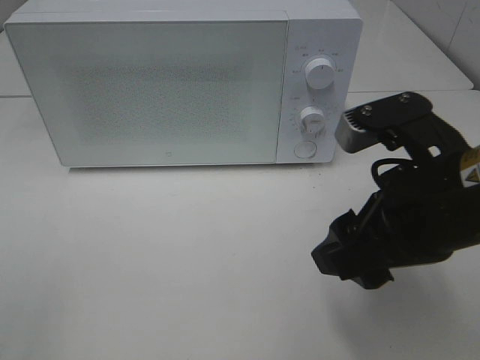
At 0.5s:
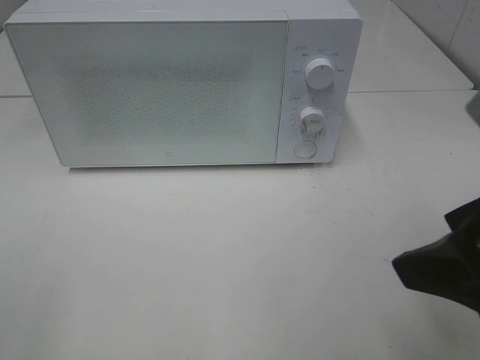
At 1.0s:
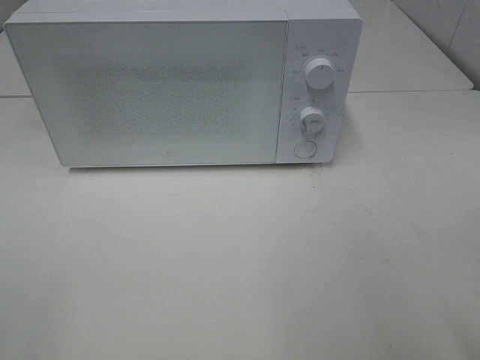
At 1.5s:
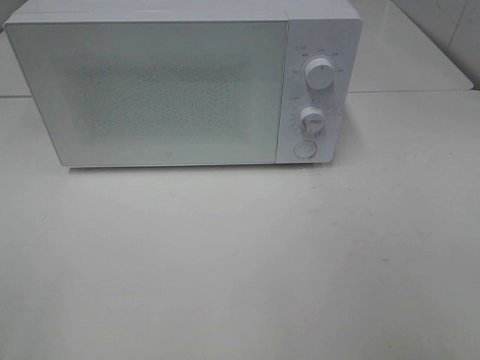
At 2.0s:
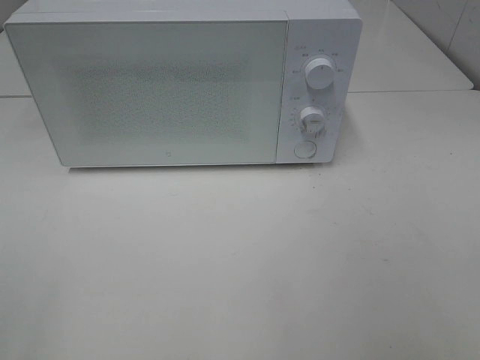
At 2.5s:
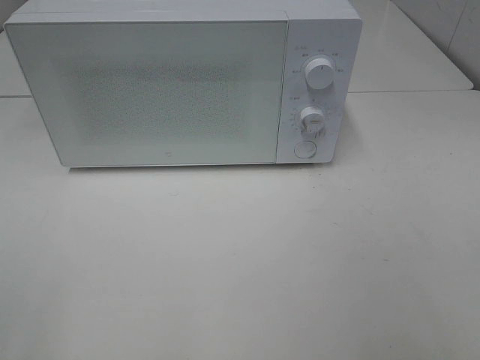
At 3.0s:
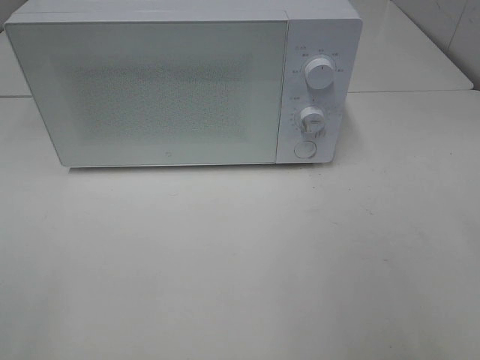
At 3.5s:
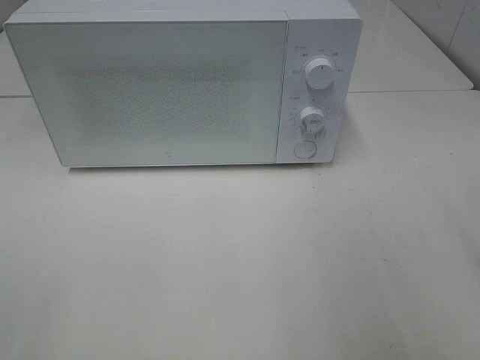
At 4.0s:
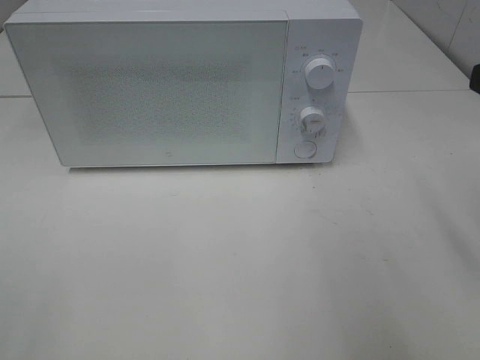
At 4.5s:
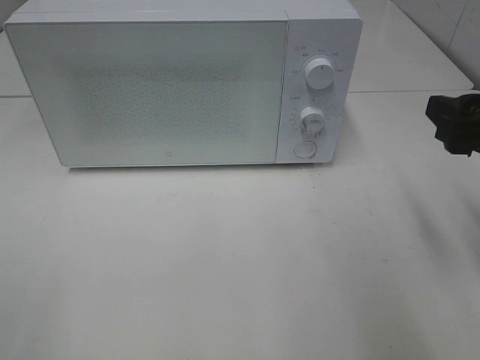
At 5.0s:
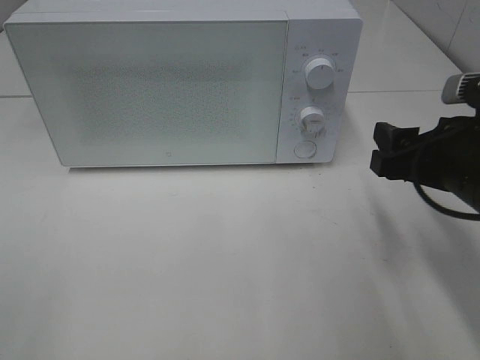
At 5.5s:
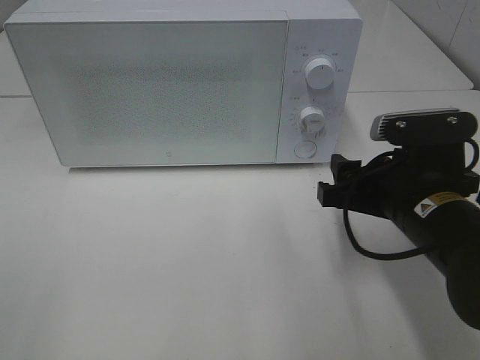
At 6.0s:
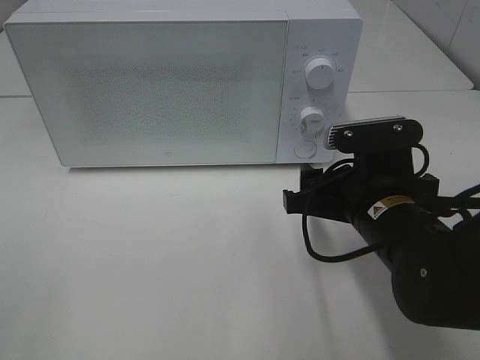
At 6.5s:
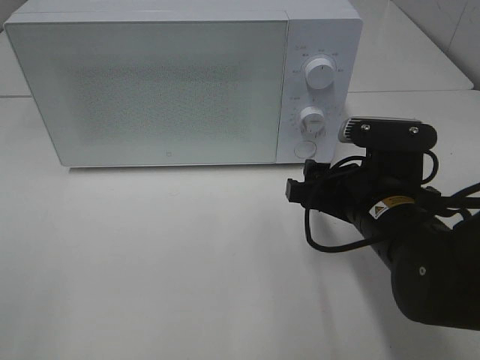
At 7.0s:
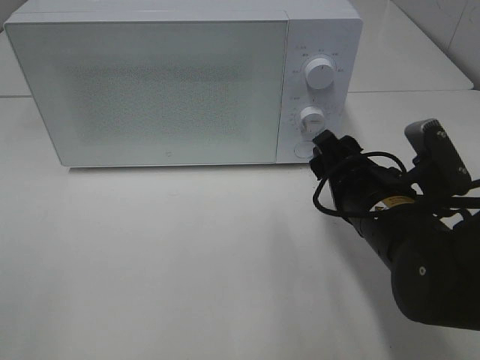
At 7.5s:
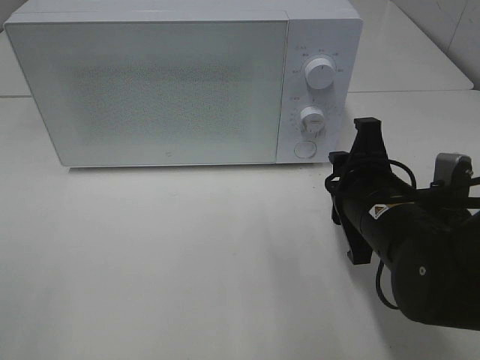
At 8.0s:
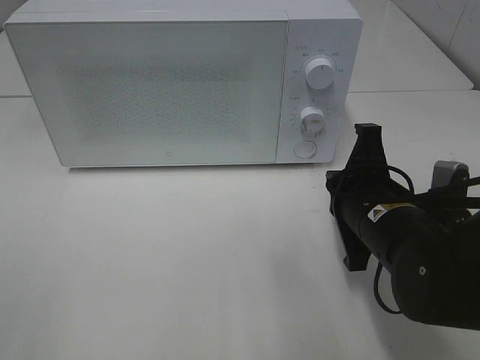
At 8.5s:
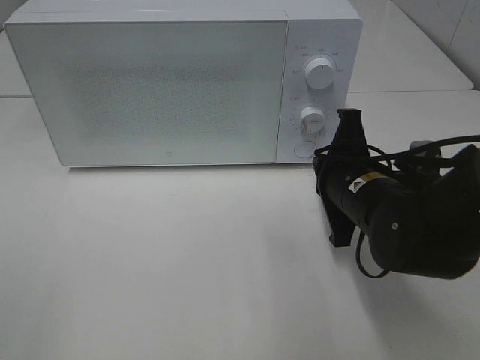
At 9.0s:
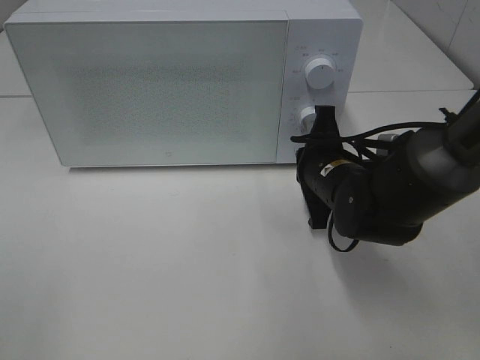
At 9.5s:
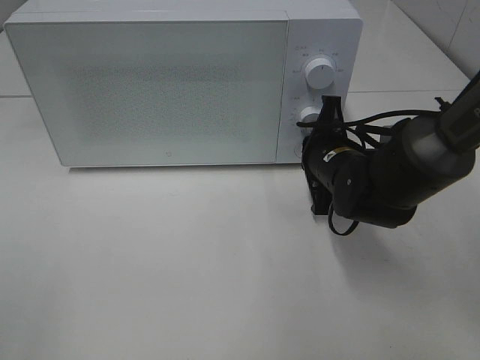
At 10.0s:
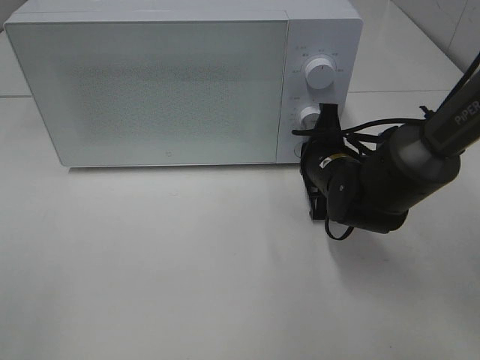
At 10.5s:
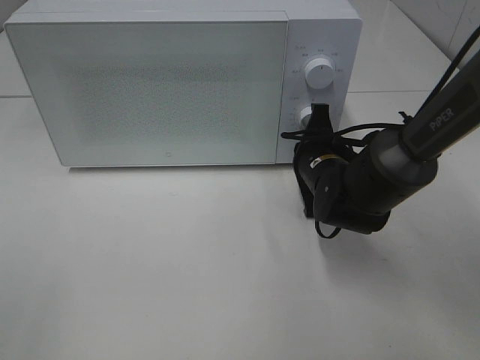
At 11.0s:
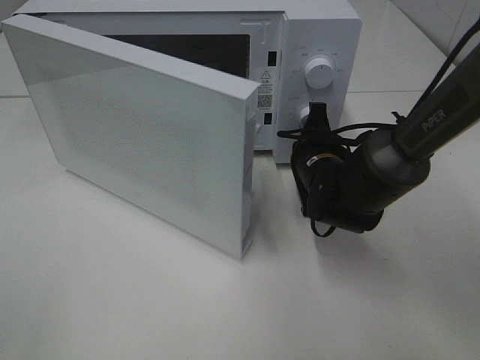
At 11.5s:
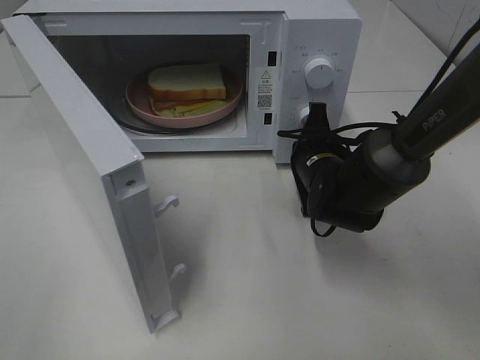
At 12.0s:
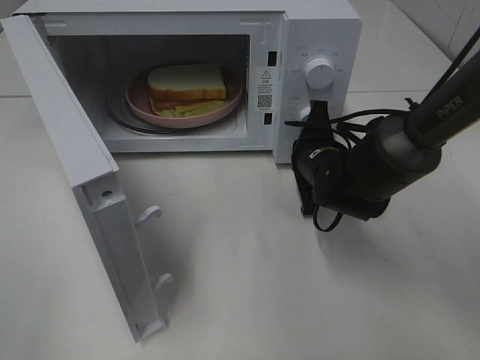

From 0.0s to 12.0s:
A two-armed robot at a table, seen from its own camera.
Task of the whole recording: Heat Sandwich.
From 0.0s to 2.0s: The right gripper goes about 20 cm backward and to the right.
From 4.0s to 6.0s: The right gripper shifts some 20 cm downward and to the left.
From 6.0s to 8.0s: The right gripper closes its fingers.
From 8.0s to 10.0s: The right gripper shifts approximately 10 cm forward.

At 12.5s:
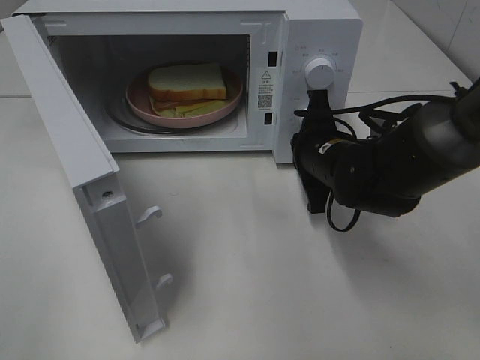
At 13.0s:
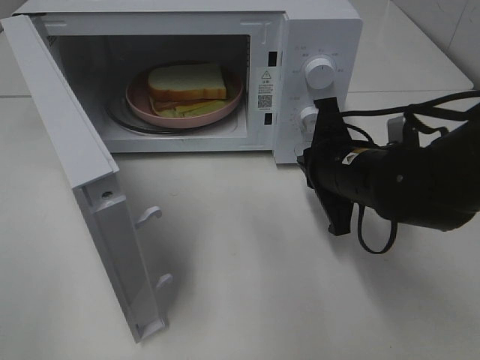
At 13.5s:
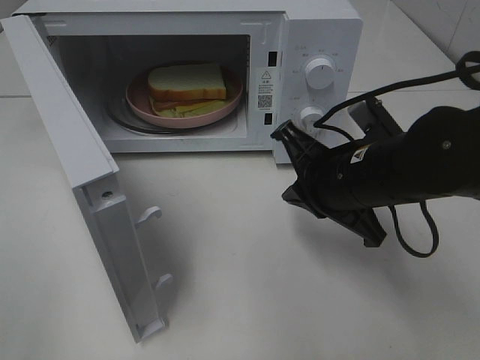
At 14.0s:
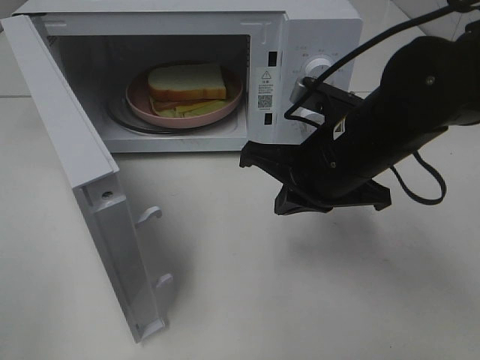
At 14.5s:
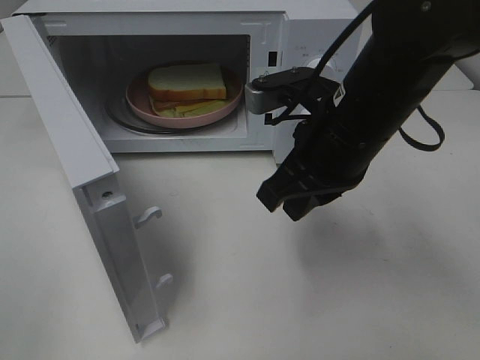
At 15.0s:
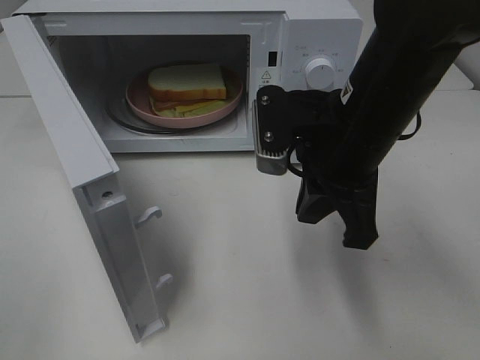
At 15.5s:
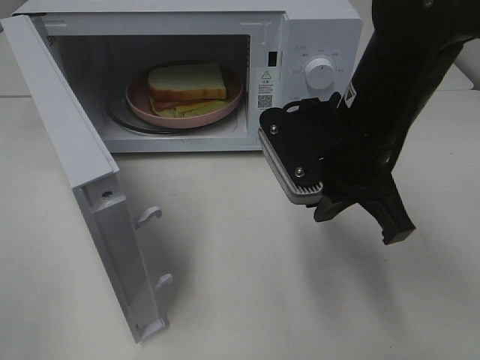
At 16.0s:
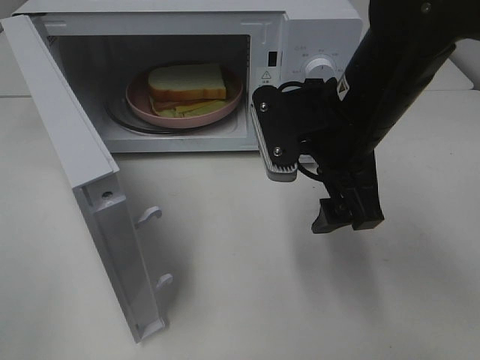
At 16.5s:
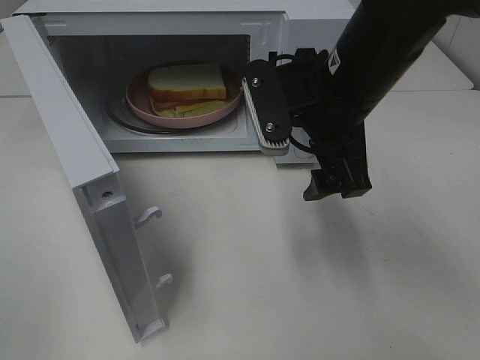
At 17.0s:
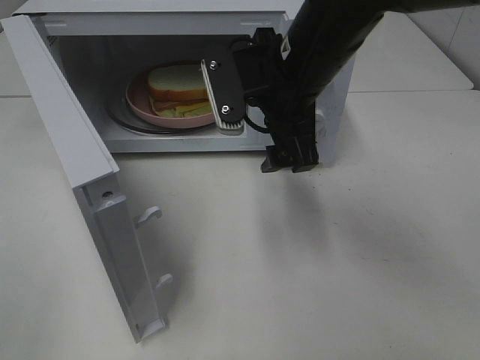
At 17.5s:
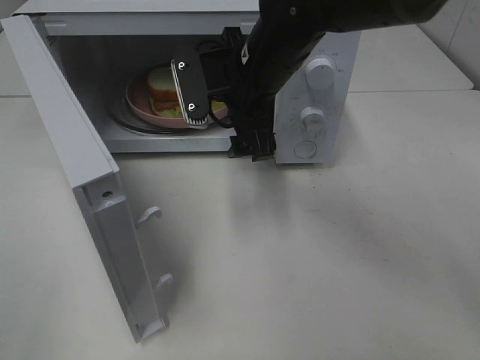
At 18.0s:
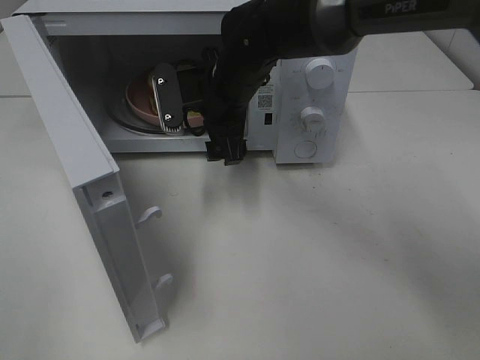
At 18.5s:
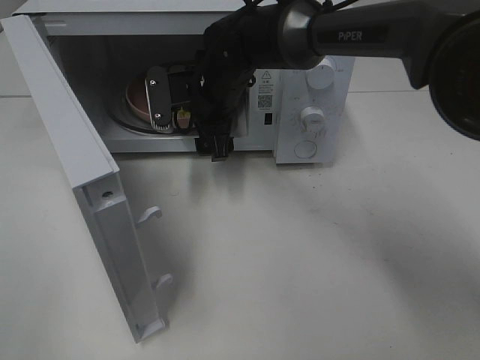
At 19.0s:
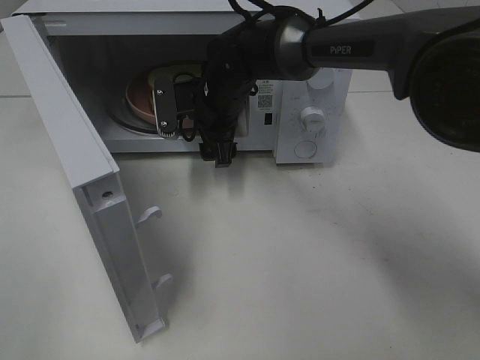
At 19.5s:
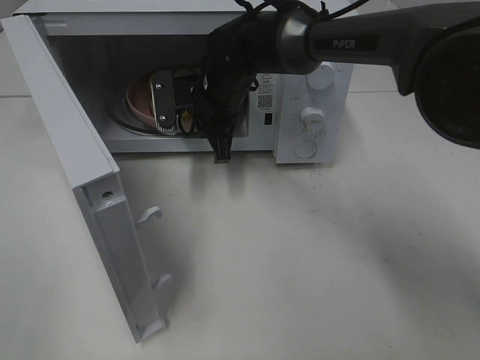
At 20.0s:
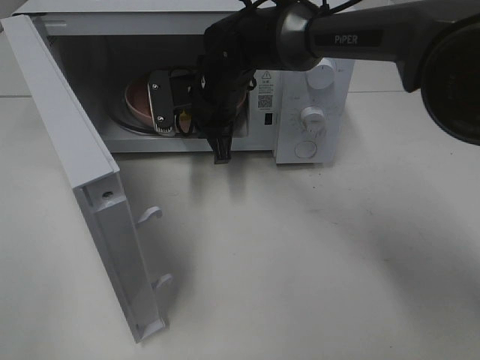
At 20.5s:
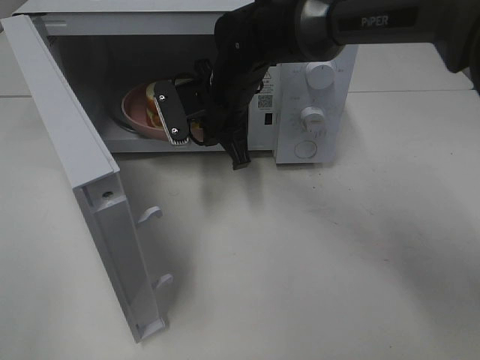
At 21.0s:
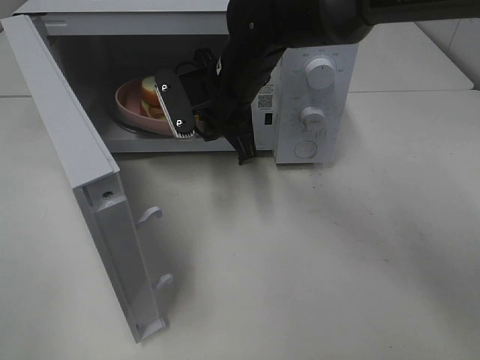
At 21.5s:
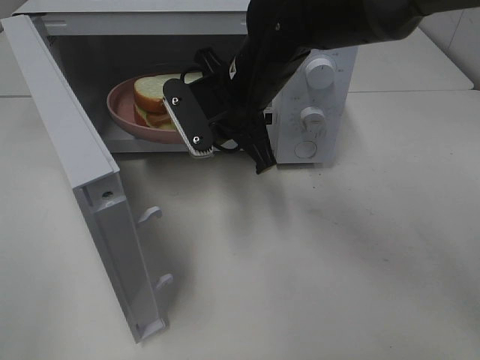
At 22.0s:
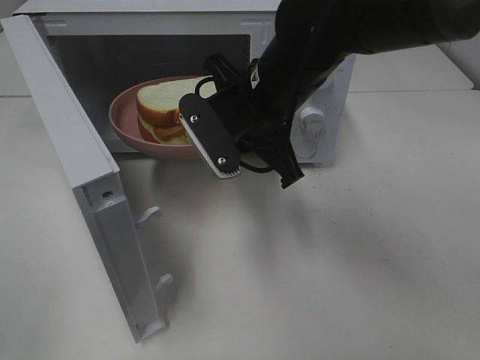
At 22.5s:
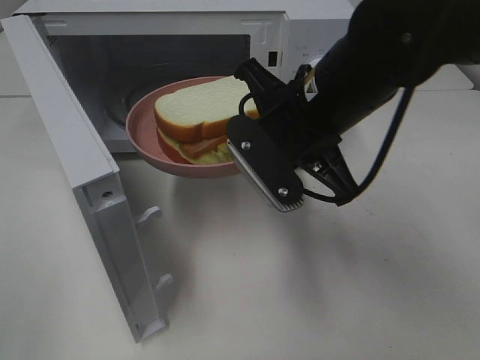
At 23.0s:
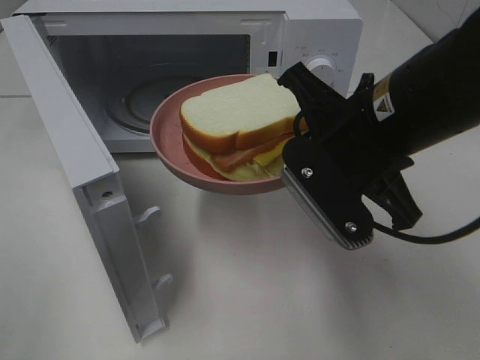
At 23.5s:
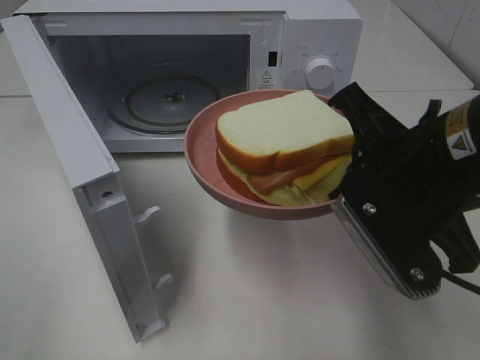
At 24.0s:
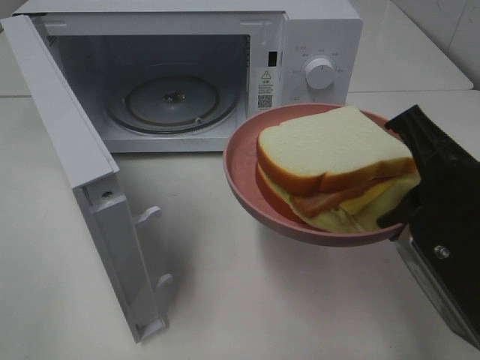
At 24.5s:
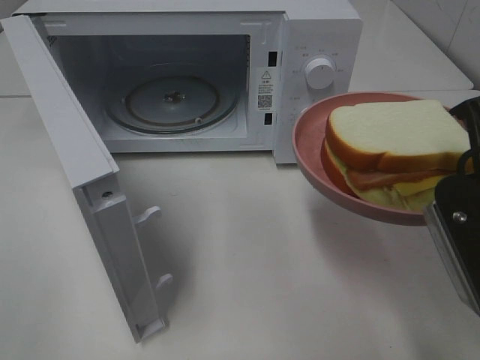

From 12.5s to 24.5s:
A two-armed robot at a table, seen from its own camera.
Task of the whole recording: Heat Sandwich.
Step, from 13.0s to 20.5s: Right hand: grab the plate with the sandwich.
From 12.5s to 14.5s: The right gripper moves upward and backward, approximately 15 cm.
From 14.5s to 16.5s: The right gripper opens up.
From 16.5s to 18.5s: The right gripper is displaced forward, to the left and downward by about 20 cm.
From 18.5s to 20.5s: The right gripper closes.
From 20.5s to 22.5s: The right gripper goes roughly 20 cm backward, to the right and upward.
From 22.5s to 24.5s: The right gripper moves to the right and backward, approximately 15 cm.

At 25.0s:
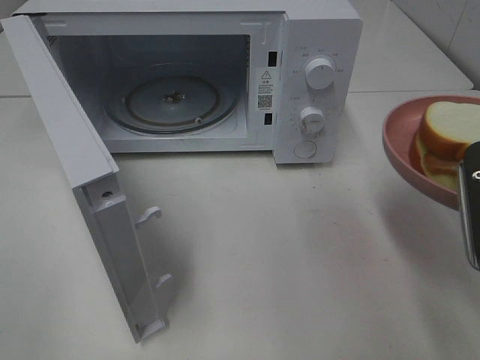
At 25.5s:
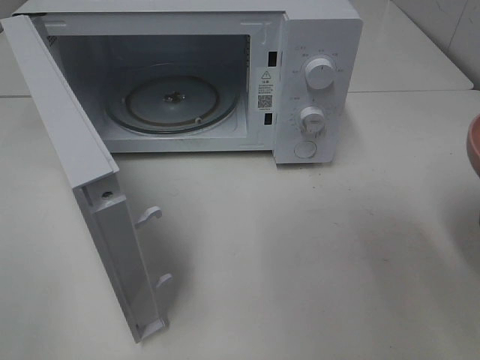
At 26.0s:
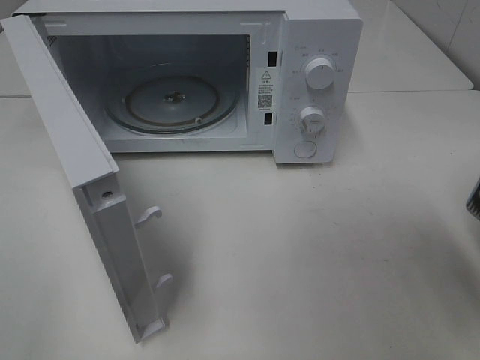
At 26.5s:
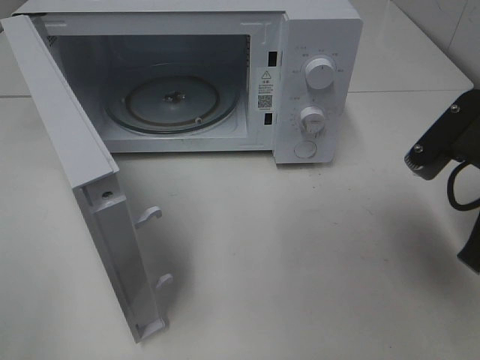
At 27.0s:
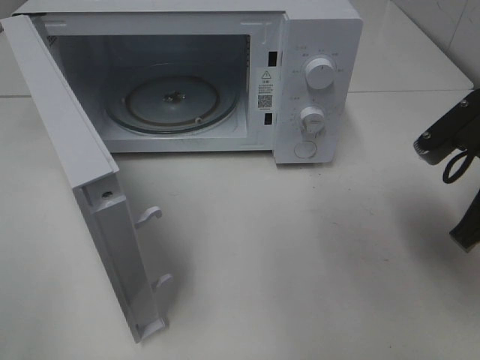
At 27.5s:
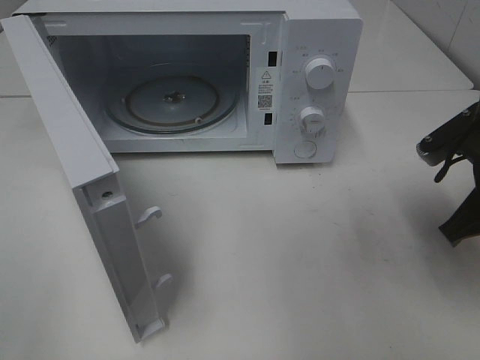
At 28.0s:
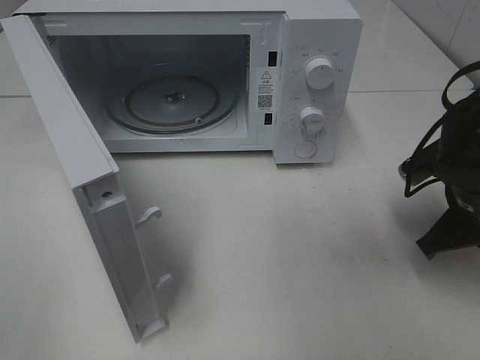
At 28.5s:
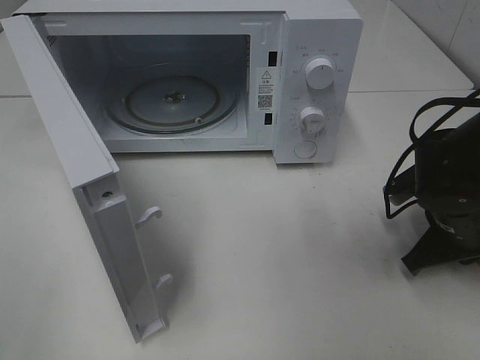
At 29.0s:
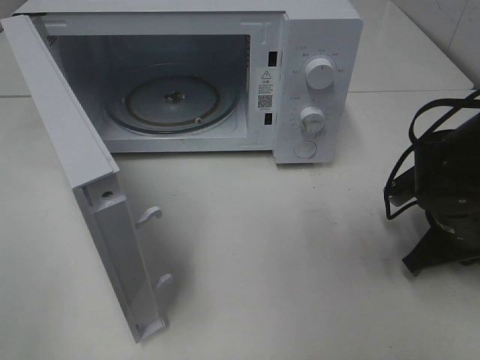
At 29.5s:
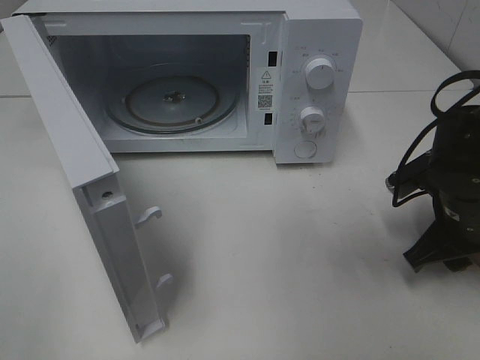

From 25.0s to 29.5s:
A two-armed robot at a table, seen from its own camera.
Task of the whole recording: Heat Sandwich.
From 25.0s to 27.0s: The right gripper shifts roughly 10 cm forward.
From 27.0s to 29.5s: The right gripper goes approximately 10 cm downward, and opens.
